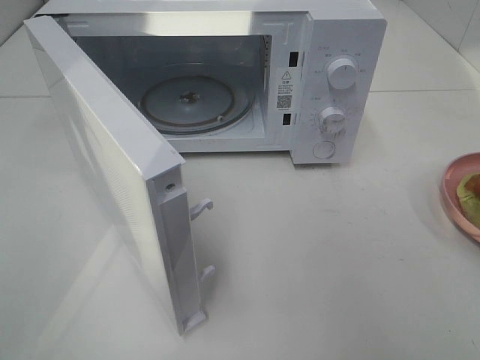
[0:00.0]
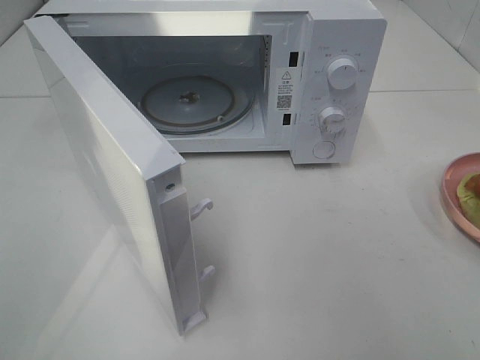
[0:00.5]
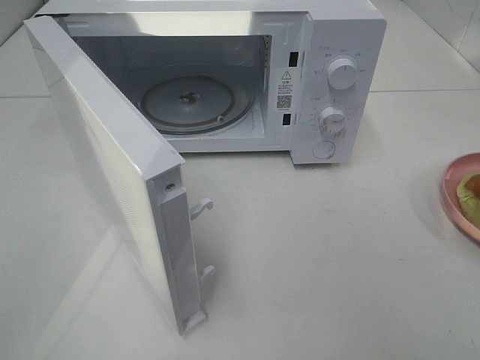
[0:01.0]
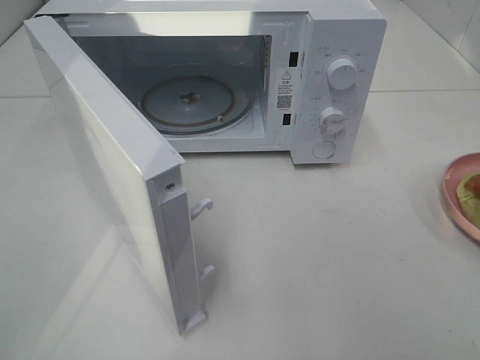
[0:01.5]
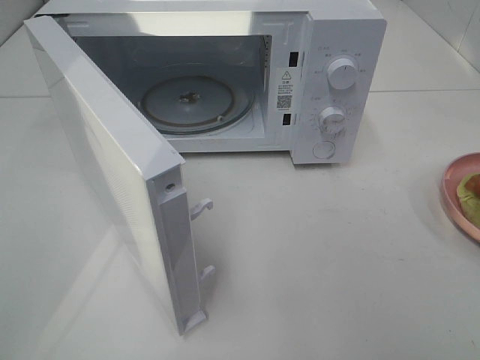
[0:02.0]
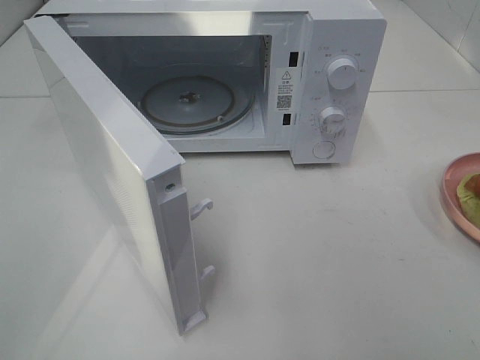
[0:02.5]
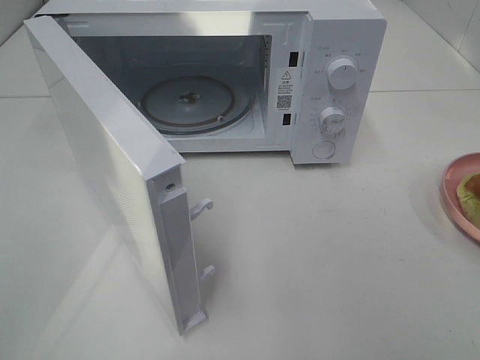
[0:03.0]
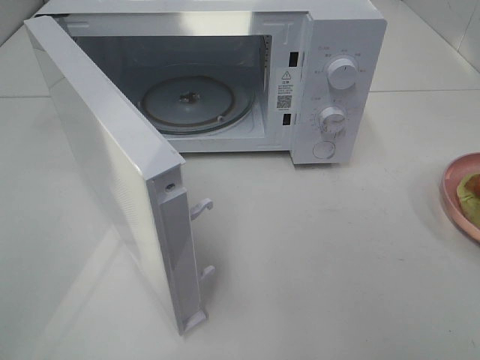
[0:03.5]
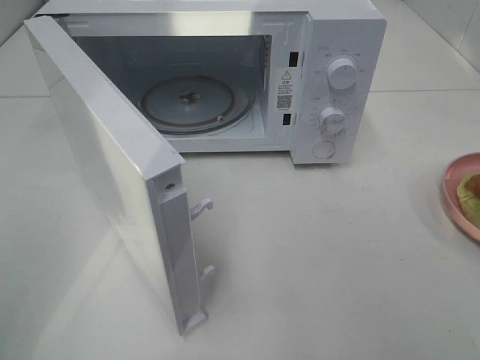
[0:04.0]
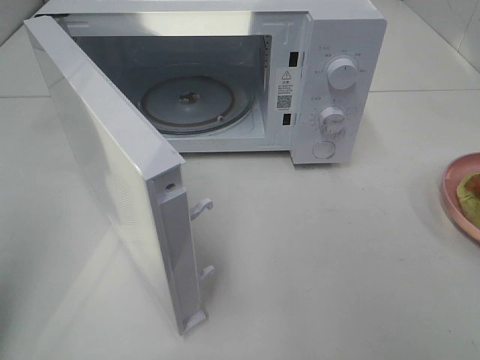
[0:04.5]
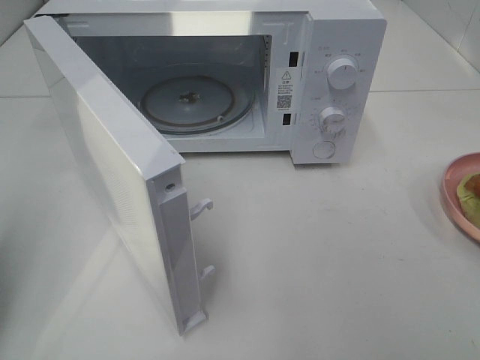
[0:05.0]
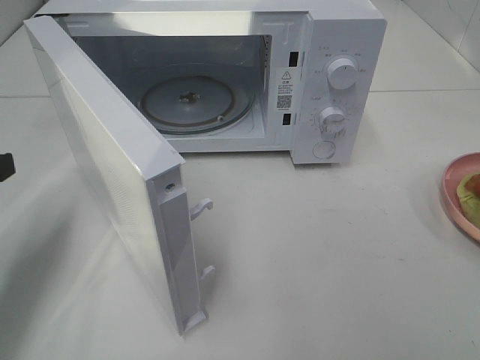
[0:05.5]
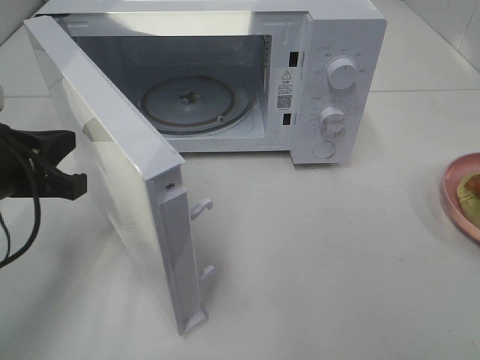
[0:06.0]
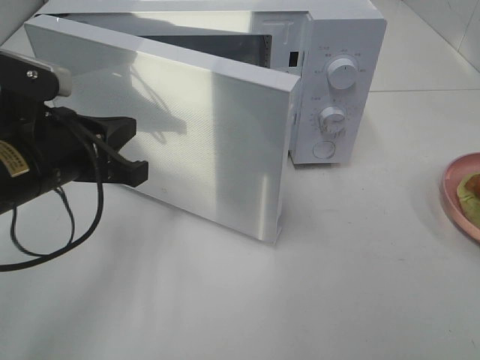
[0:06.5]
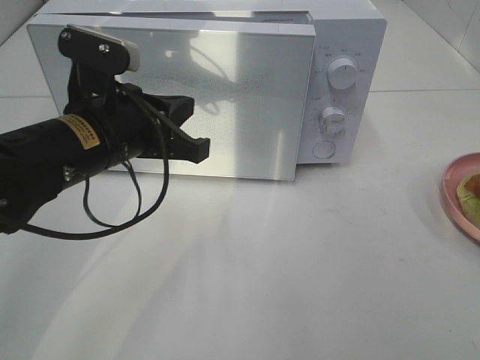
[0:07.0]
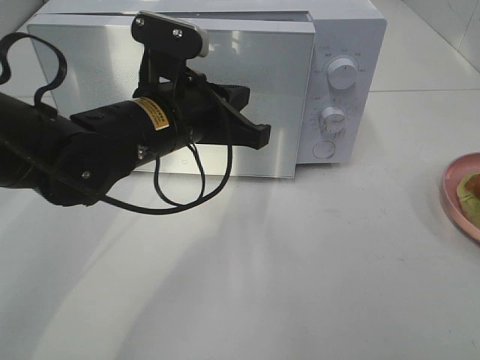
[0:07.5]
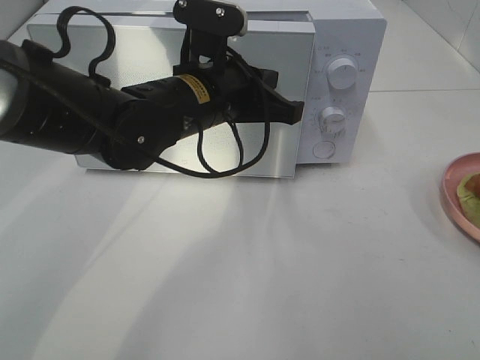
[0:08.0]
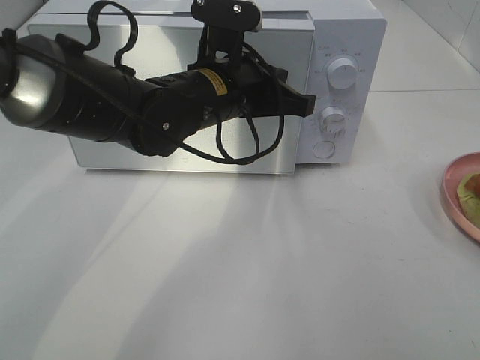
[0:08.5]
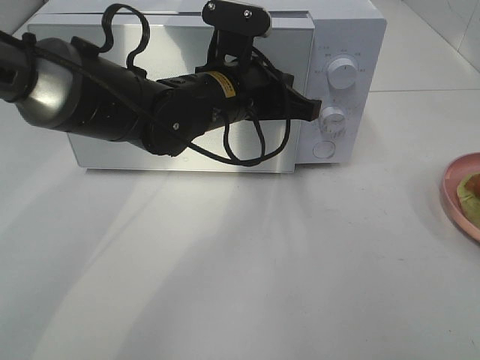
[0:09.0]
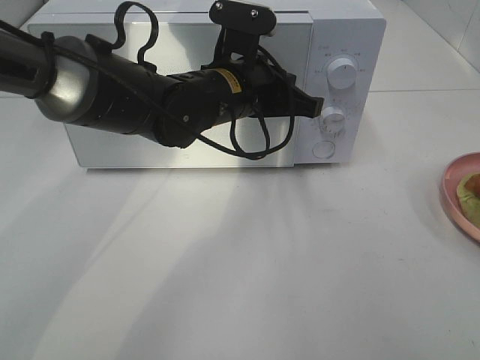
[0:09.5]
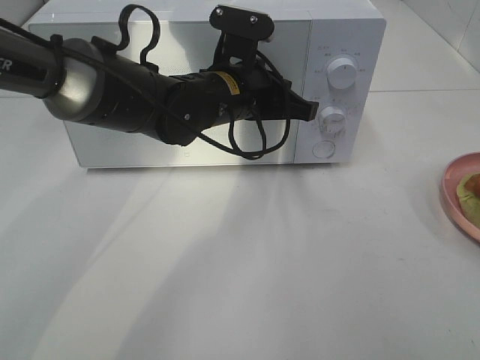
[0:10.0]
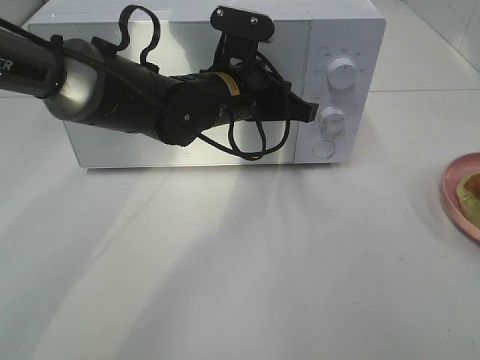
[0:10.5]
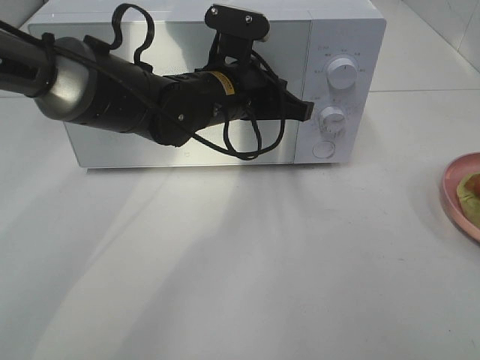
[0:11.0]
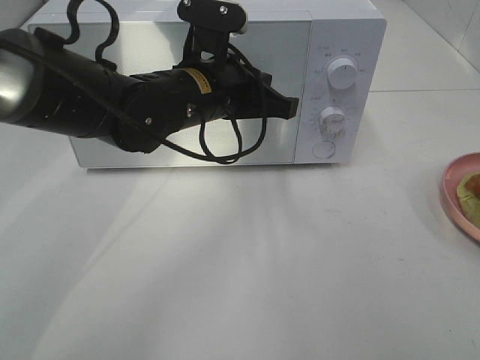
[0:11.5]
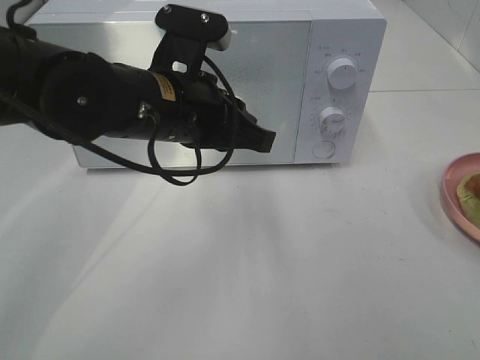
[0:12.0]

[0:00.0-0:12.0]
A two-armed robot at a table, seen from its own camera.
Task of the whole recording: Heat Sandwich.
Step, 0:00.0 to 0:11.0: Left hand: close the microwave door.
0:02.0 to 0:04.0: The left gripper shifts some 5 cm forward, and closes.
0:04.0 to 0:06.0: The left gripper travels forward, downward and to the right by roughly 25 cm, and closes up.
0:06.0 to 0:08.0: The left gripper travels to the right by roughly 20 cm.
0:08.0 to 0:10.0: The left gripper ends up some 5 cm from where it was.
0:10.0 to 0:12.0: The left gripper goes some 10 cm backward and to the left.

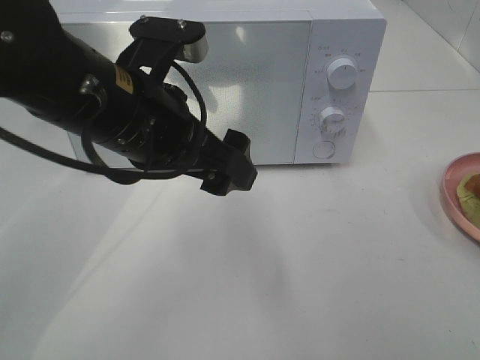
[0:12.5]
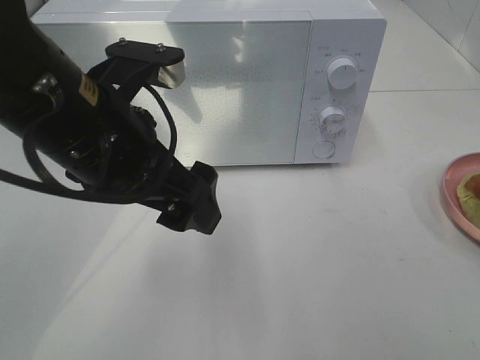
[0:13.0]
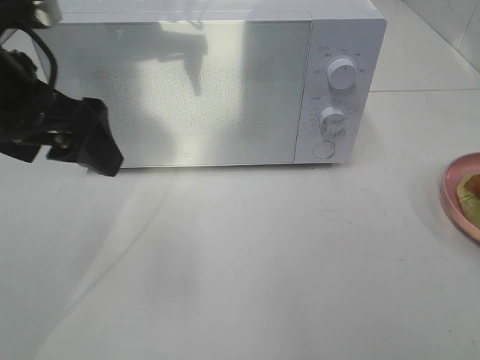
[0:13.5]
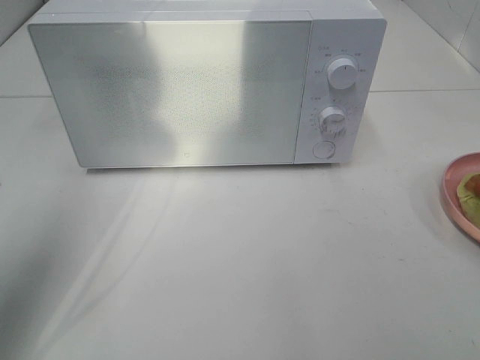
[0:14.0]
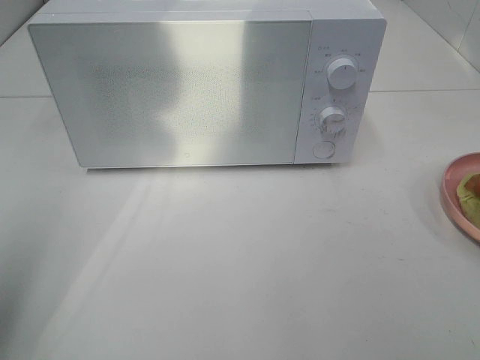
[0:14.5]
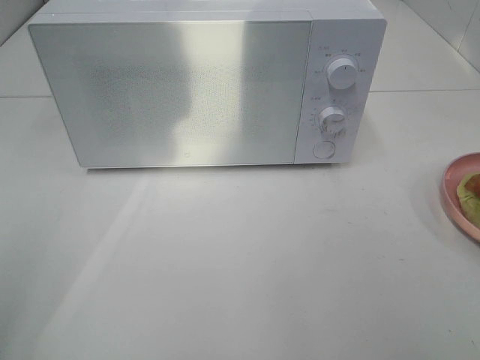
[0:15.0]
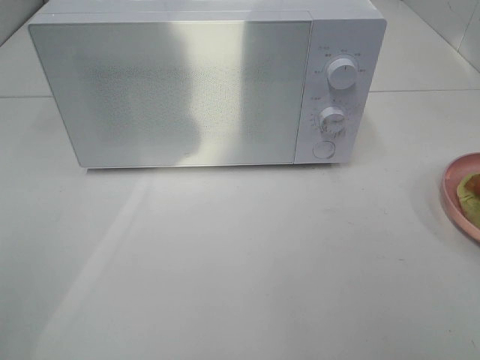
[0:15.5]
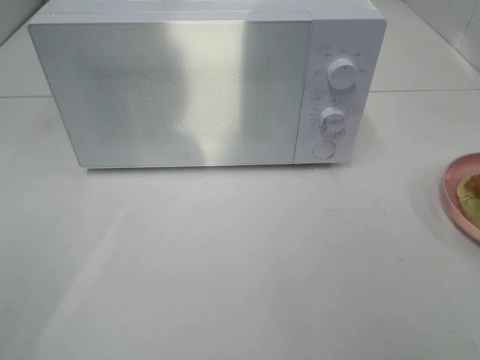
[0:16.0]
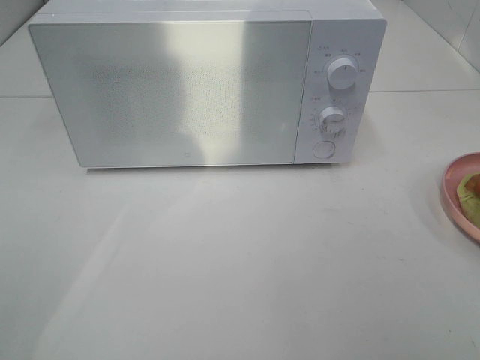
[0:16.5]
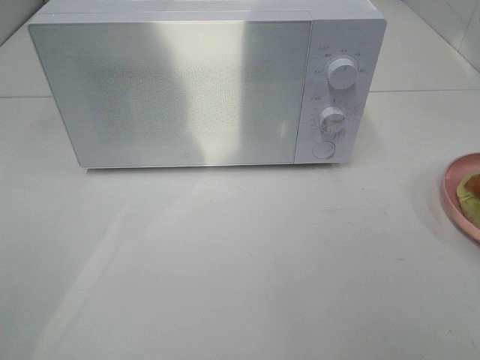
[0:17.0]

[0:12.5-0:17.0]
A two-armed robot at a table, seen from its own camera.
Task of the whole recording: Heat Sandwich.
0:12.5 to 0:14.5: The left gripper moves to the left and backward, roughly 25 cm.
0:14.5 to 0:17.0: The left gripper goes approximately 15 cm backward.

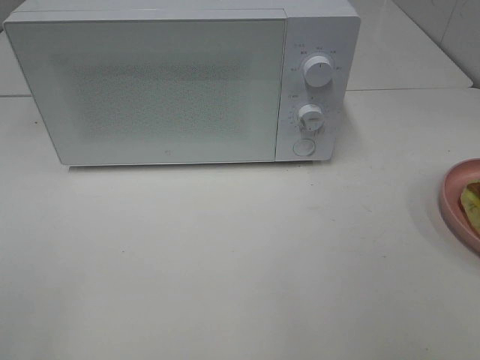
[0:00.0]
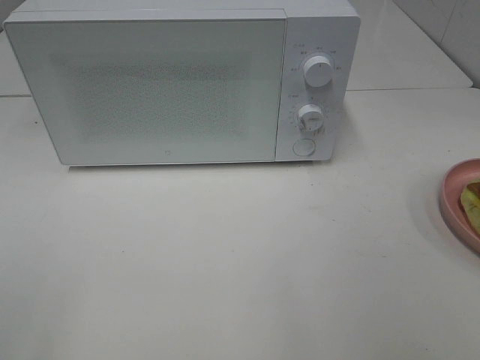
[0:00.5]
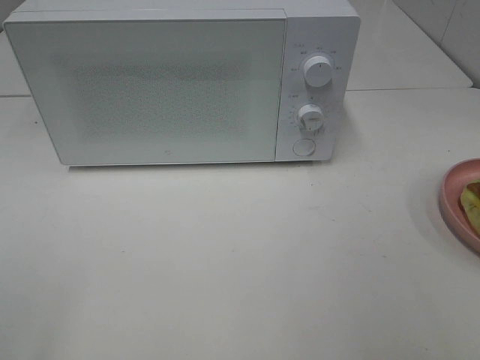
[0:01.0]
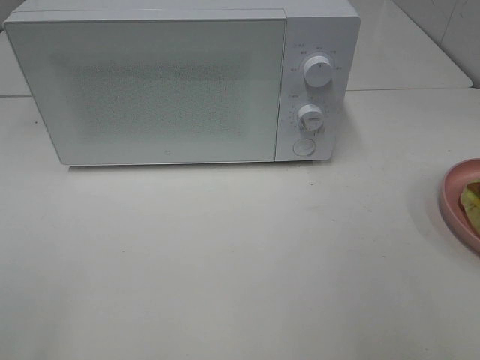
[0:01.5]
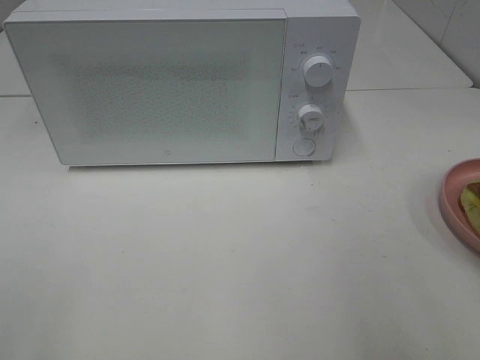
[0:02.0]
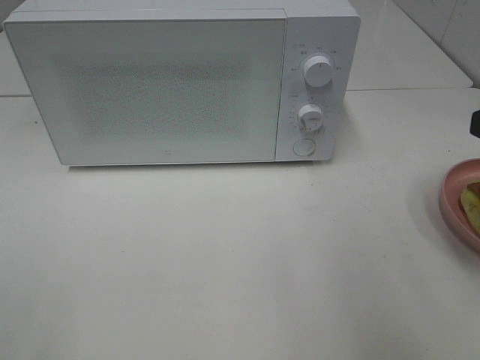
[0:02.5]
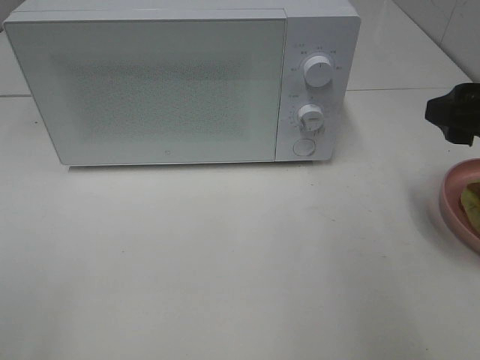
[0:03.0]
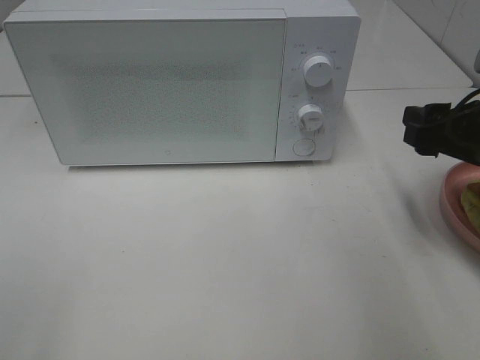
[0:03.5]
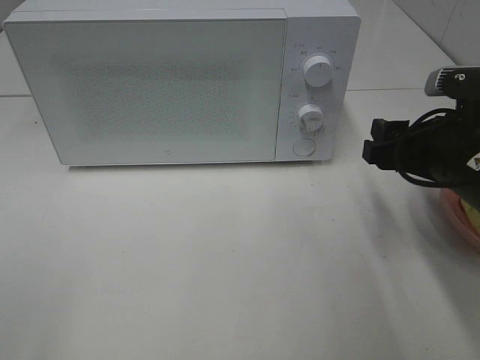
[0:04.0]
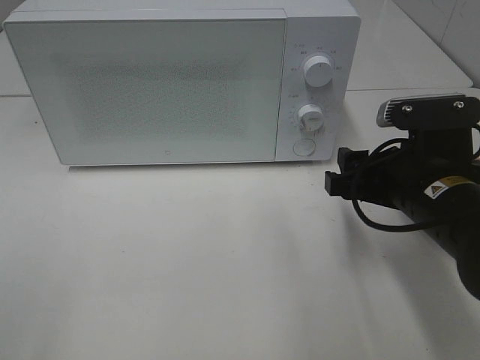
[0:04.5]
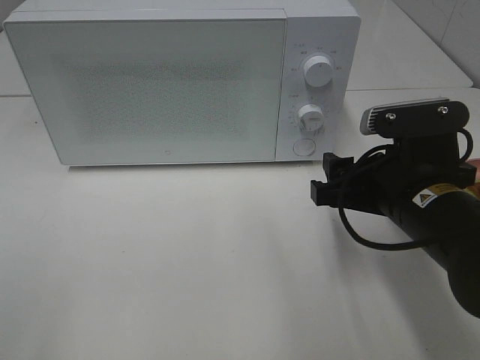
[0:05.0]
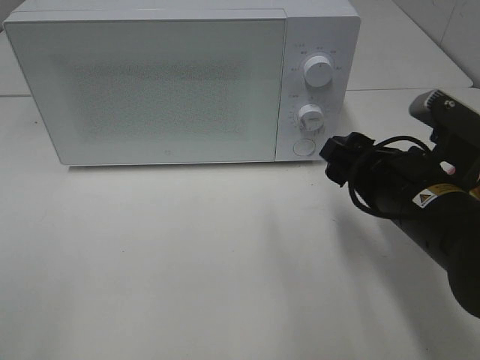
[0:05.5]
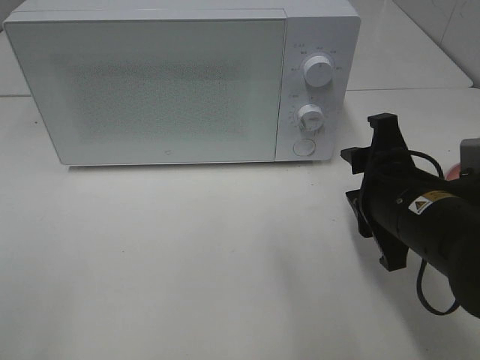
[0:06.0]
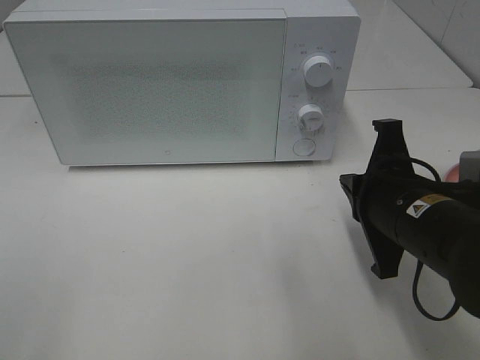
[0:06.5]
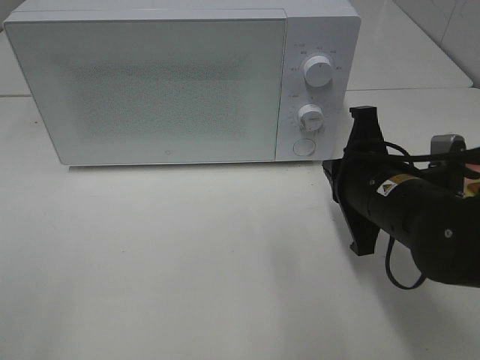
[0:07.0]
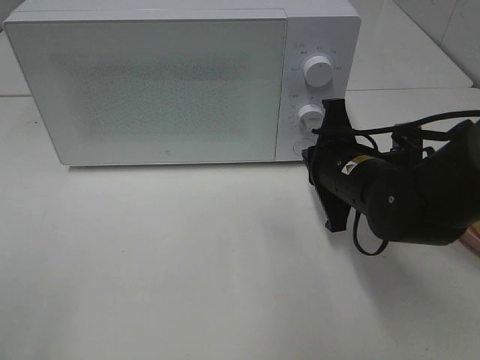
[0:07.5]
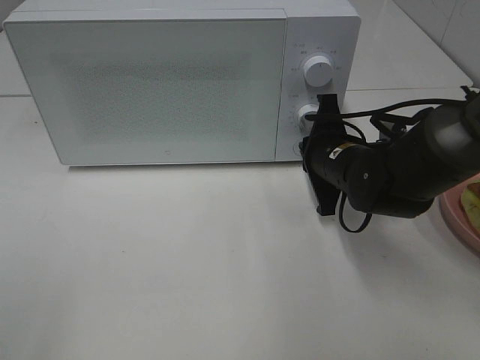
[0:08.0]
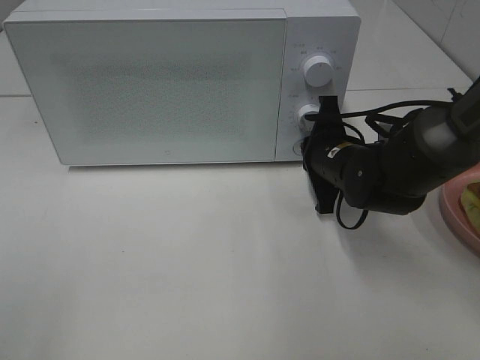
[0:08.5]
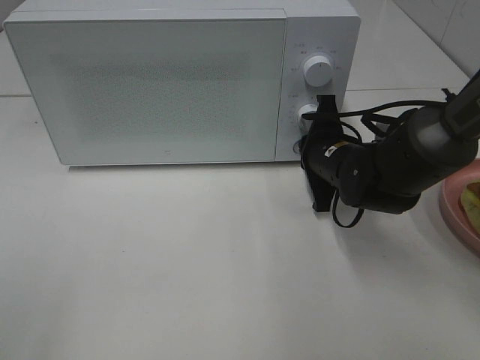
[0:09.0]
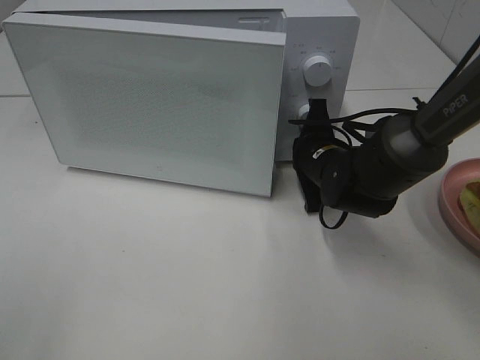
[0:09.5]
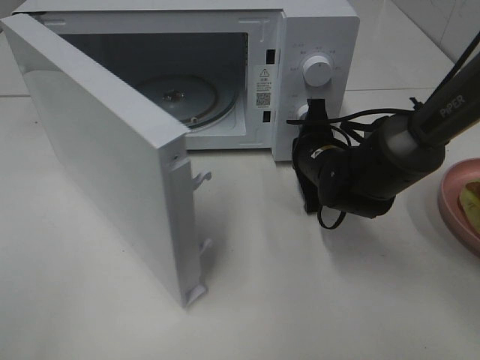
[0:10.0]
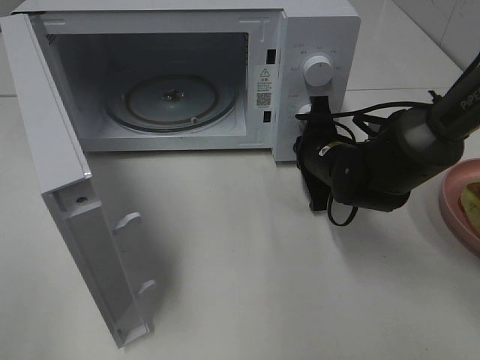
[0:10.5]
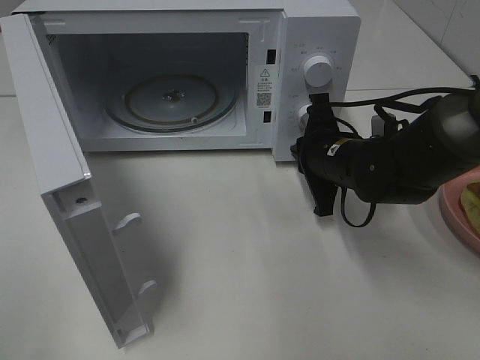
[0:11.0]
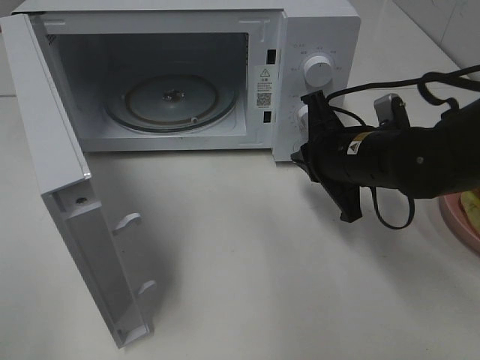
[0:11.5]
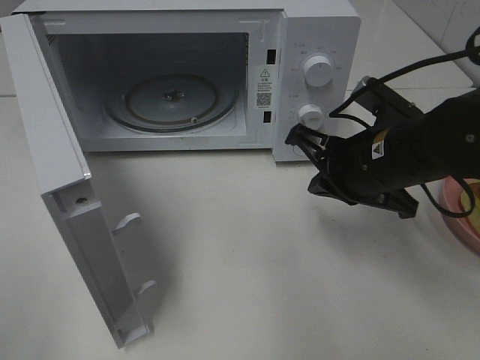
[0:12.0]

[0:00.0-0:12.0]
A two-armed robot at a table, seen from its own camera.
Task of the whole recording: Heat Sandwich.
Step, 0:00.0 to 0:11.0: Right hand: press the switch.
0:02.0 to 0:04.0: The right gripper shifts some 20 cm forward, downward and to the left.
0:04.0 to 0:06.0: The right gripper is displaced to the left by roughly 5 cm.
0:06.0 to 0:08.0: The right gripper travels forward by about 15 cm, and closes.
0:10.0 to 0:12.0: The right gripper heads backward and upward, covering about 15 cm.
